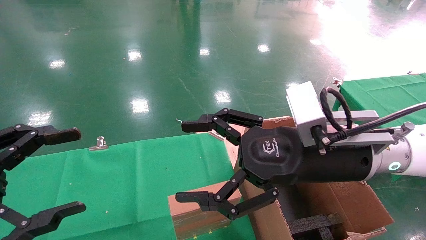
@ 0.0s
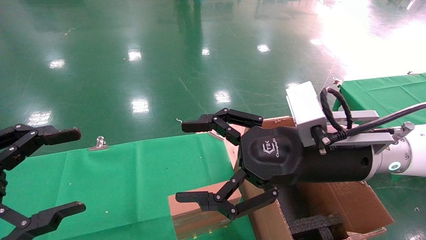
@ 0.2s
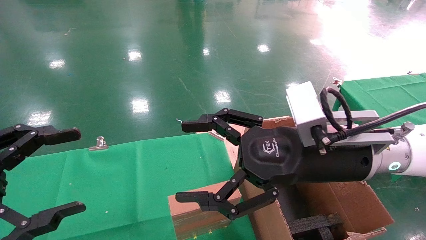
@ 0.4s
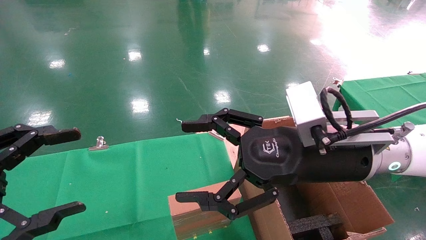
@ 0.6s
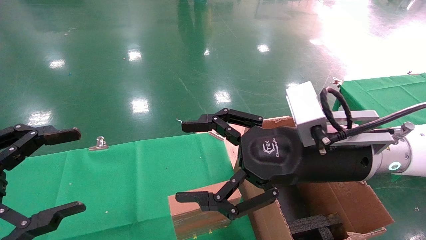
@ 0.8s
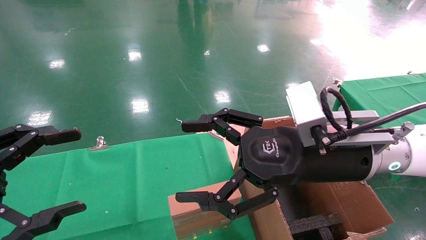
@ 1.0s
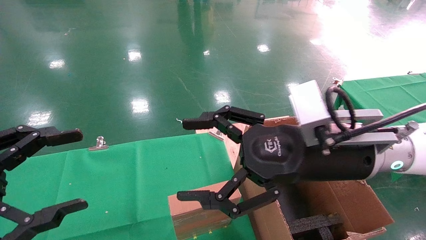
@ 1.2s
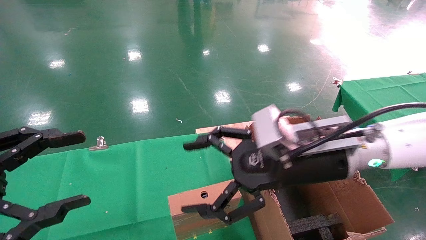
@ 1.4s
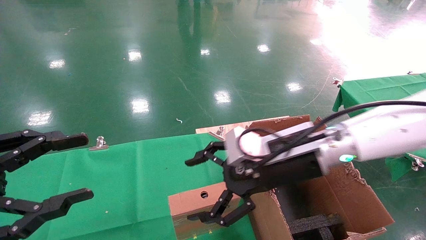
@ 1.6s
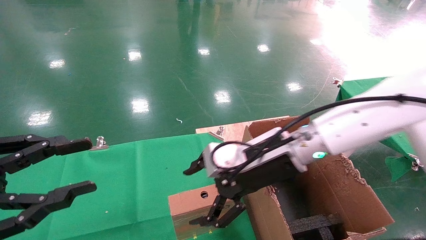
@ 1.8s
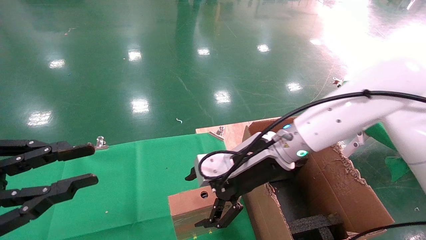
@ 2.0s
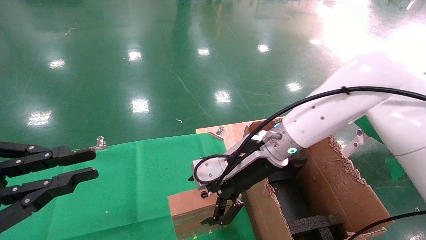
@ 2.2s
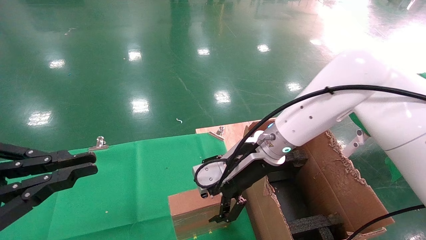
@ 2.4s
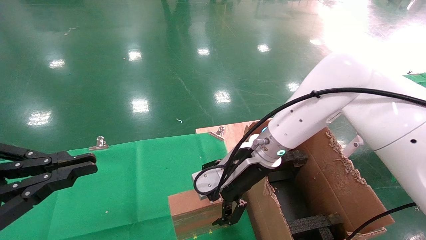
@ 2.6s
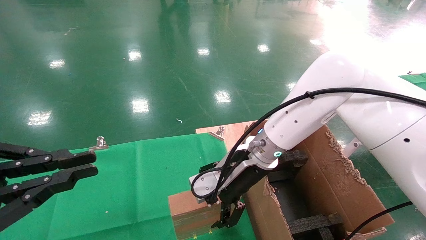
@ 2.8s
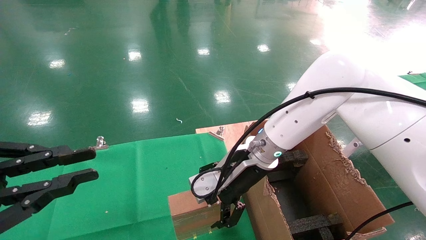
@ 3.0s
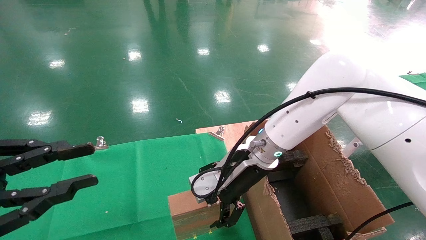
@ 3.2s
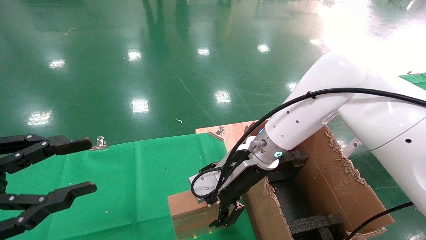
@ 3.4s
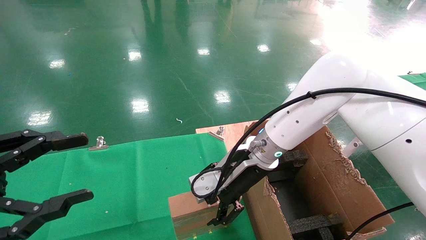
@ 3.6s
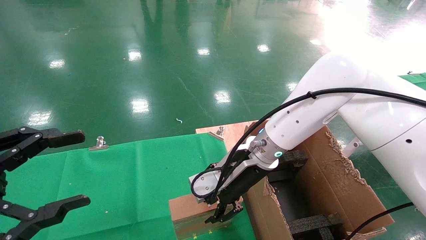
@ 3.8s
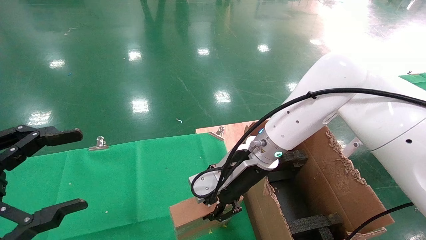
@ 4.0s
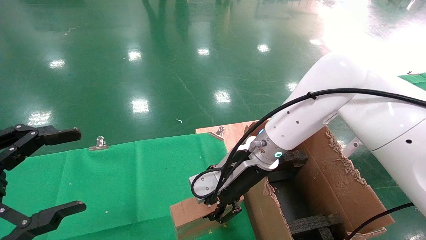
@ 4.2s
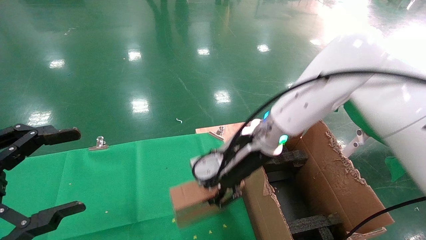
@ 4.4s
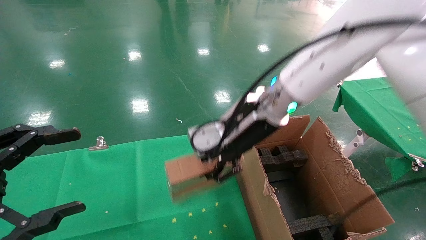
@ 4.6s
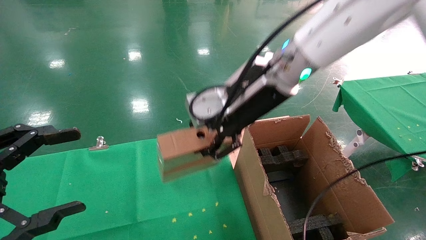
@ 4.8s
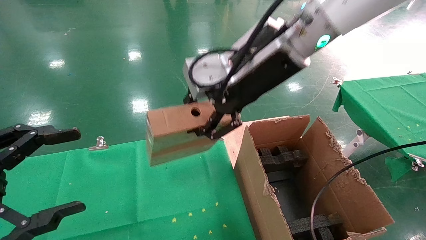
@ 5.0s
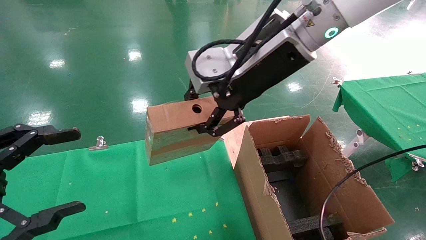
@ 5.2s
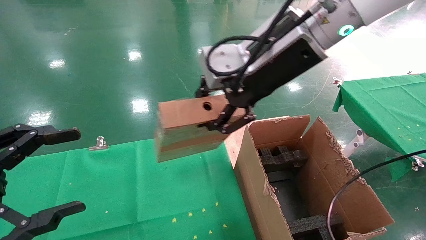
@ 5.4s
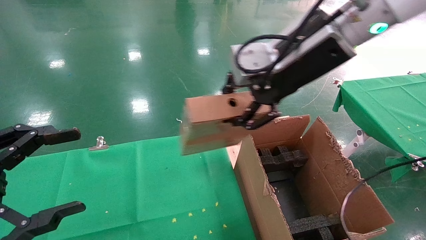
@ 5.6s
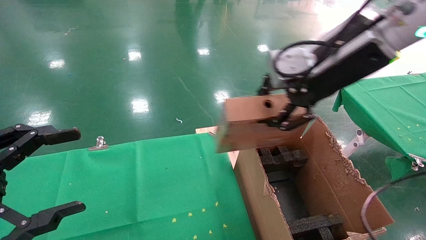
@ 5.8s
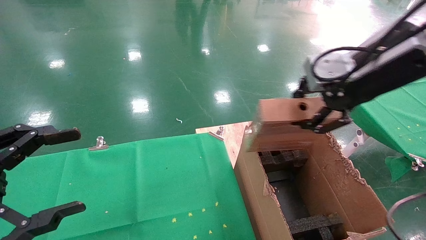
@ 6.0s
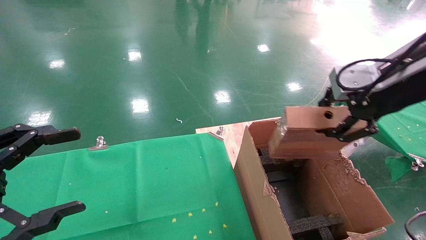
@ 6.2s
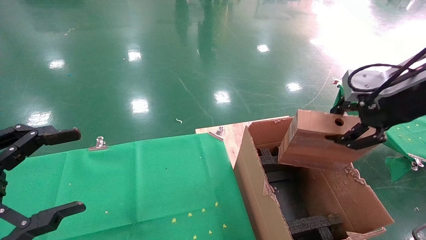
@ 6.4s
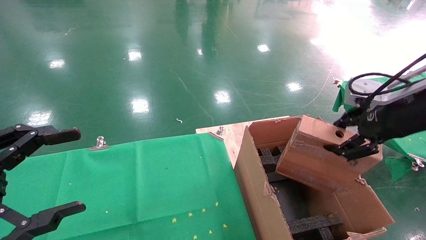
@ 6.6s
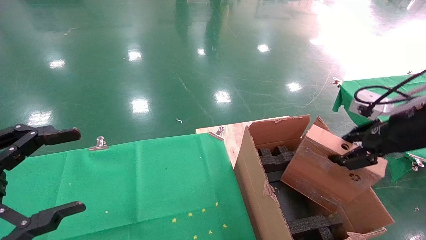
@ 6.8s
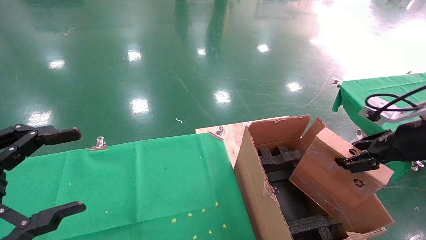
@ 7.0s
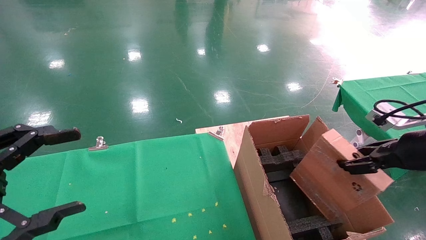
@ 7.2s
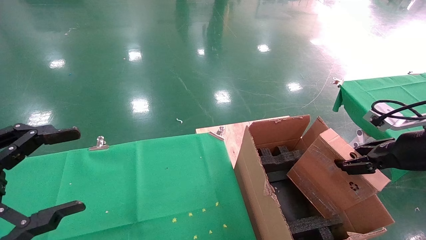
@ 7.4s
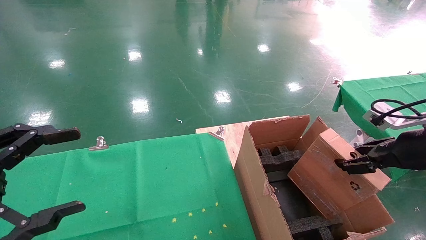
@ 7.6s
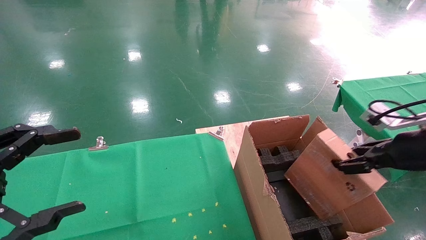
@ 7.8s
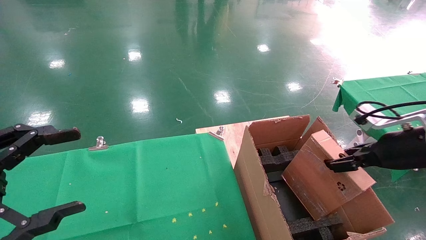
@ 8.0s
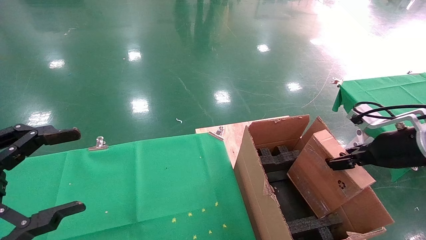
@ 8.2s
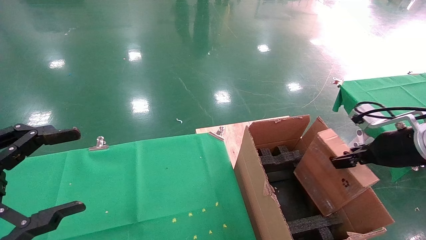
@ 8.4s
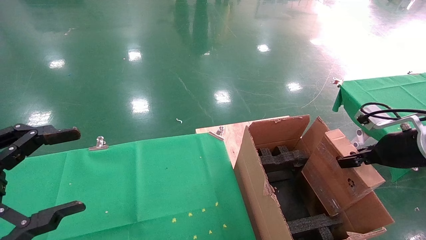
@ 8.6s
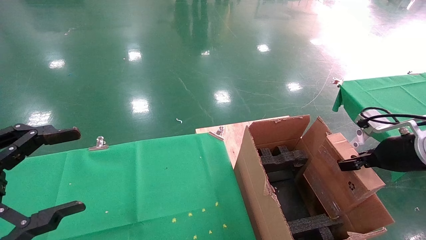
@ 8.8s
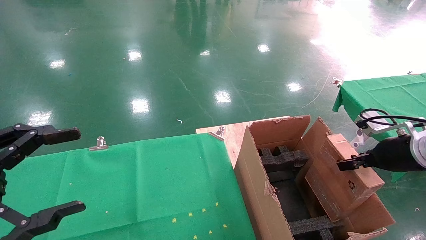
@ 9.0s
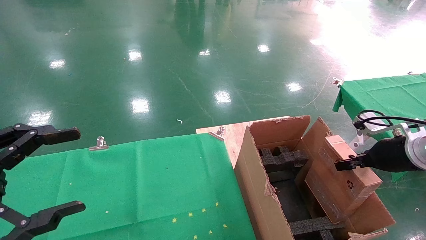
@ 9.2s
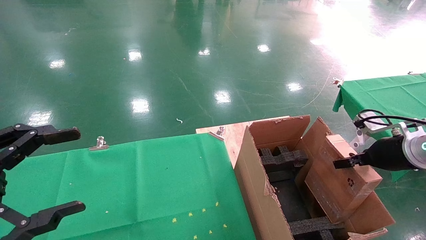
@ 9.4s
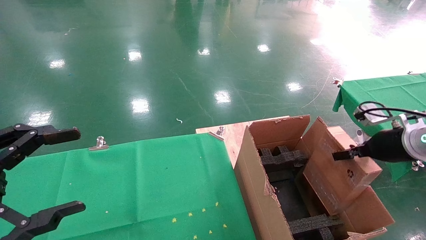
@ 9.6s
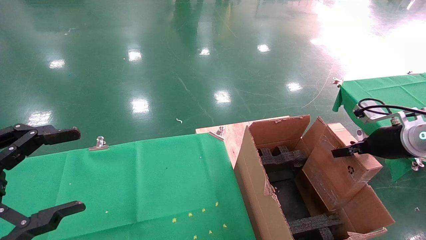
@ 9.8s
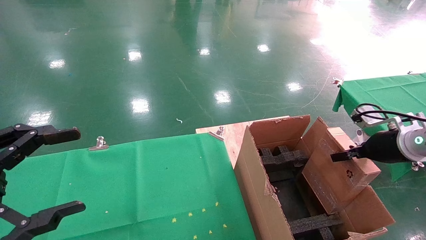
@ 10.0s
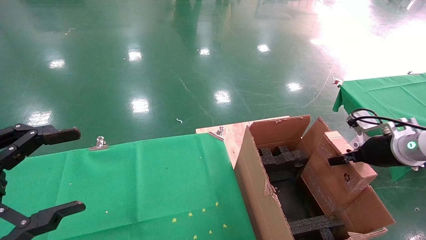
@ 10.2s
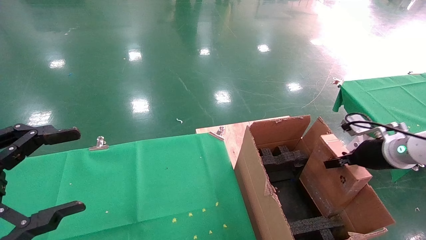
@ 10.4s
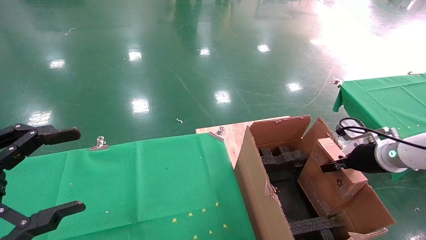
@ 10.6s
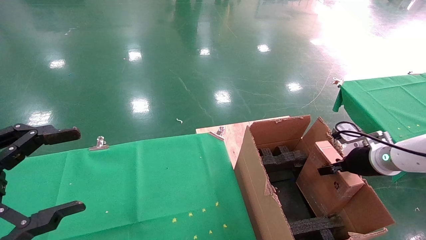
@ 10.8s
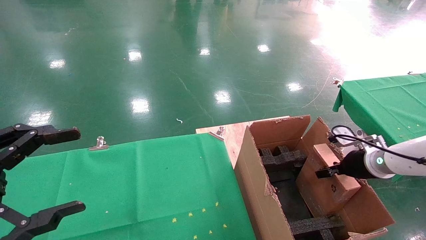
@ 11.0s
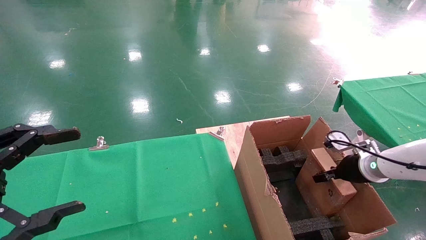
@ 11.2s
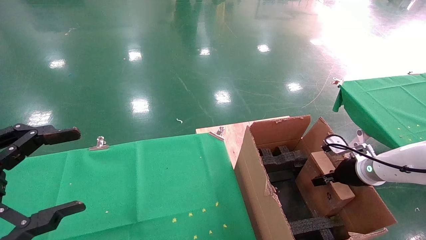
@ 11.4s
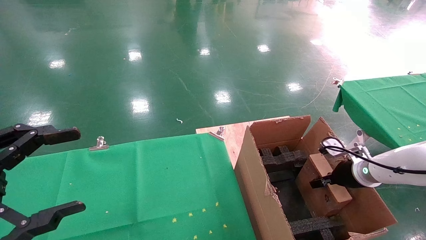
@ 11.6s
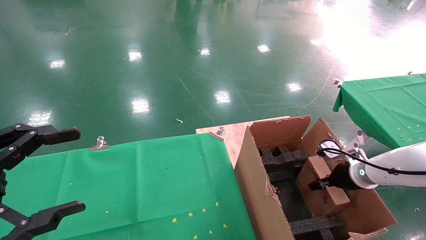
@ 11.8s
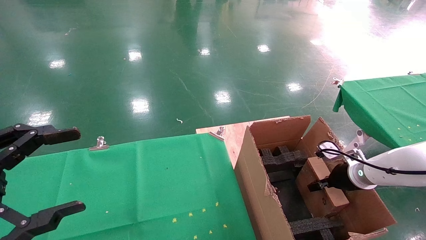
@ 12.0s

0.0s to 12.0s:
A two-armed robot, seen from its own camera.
Task of the whole recording: using a robotic arm to pick up a cardboard box and palace it the carton.
Step, 1.4s to 4.4s: Pick up the mouse and the power cord paper box.
0.0s to 1.6s: The right gripper shifts roughly 5 cm forward.
1.6s to 3.0s: The left gripper closes up. The right gripper shifts roughly 5 cm forward.
3.0s to 4.4s: The right gripper shifts by about 5 cm, and closes. Meanwhile the left gripper opens.
4.4s to 6.0s: The right gripper is displaced to the right, upward and backward by roughly 25 cm.
6.0s to 7.6s: The right gripper heads downward and to the right, covering about 20 cm.
7.6s to 9.0s: The right gripper shifts by some 5 cm.
9.0s to 10.4s: The right gripper changes place by some 5 cm.
10.4s to 12.0s: The right gripper shifts about 10 cm downward.

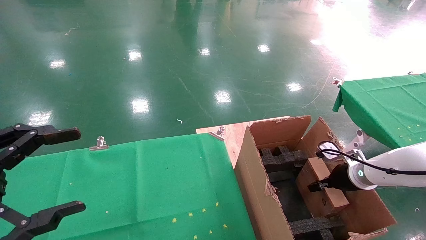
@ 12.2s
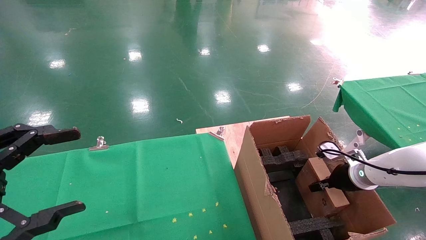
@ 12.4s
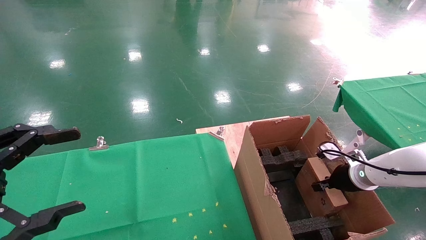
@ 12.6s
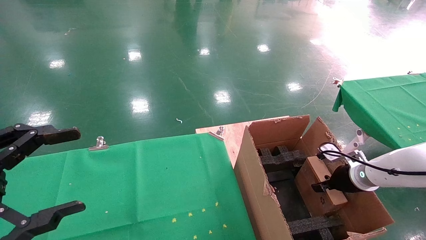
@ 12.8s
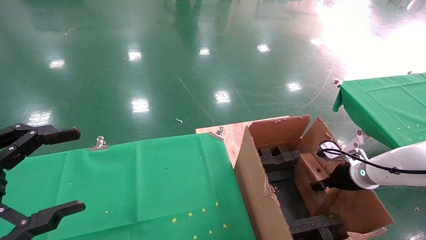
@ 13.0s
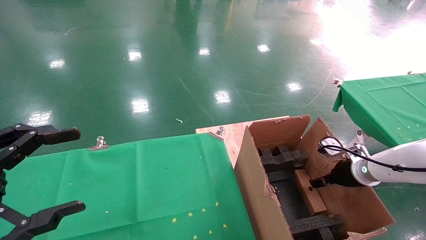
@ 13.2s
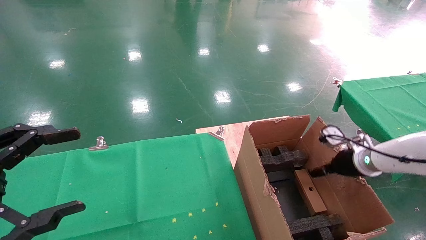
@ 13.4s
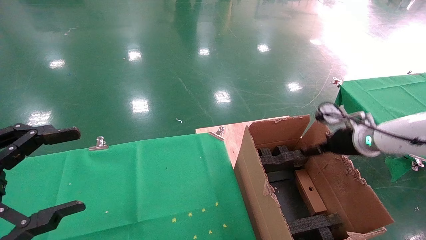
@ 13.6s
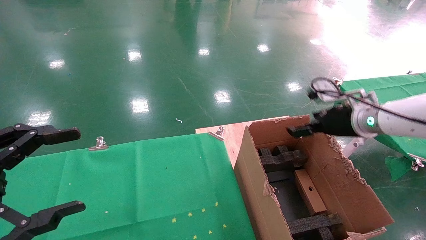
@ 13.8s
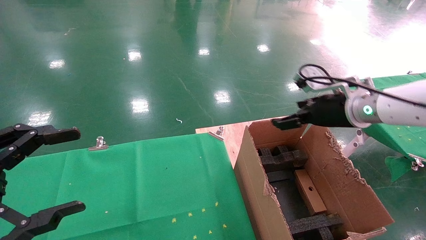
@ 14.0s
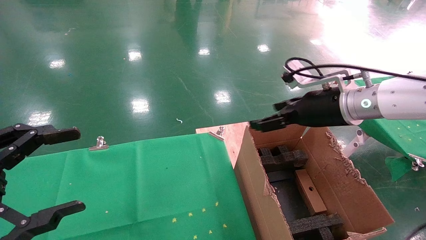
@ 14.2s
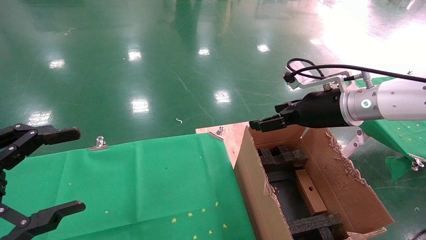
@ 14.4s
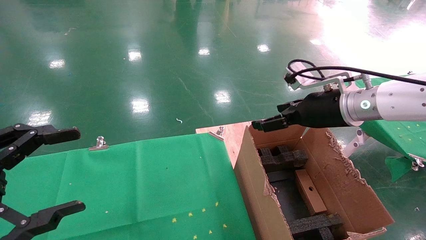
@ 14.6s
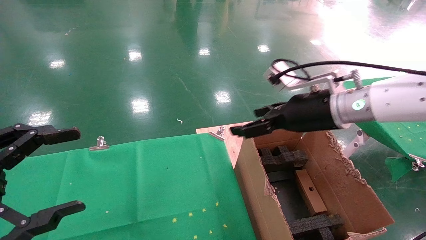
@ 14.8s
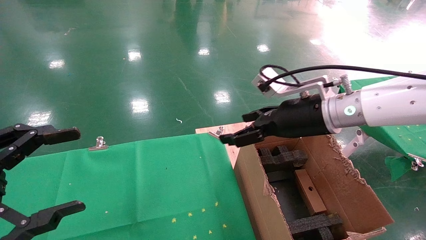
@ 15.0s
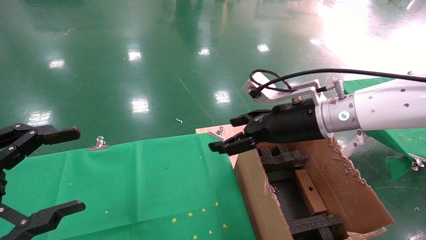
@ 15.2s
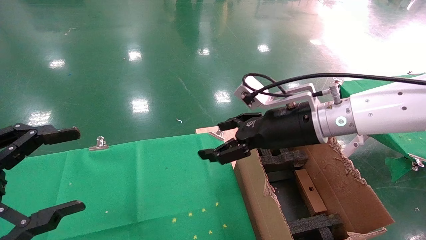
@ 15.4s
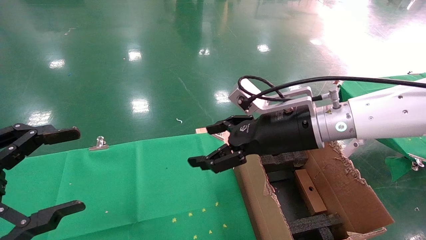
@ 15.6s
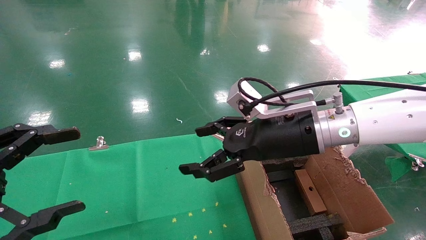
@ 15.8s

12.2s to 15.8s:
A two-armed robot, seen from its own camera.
Task of the whole recording: using a robotic arm to pick up a cardboard box and palace it the carton.
12.2s to 14.0s: The right gripper travels upward and to the left by roughly 20 cm, and opens up.
14.0s to 15.8s: The right gripper shifts some 15 cm to the left.

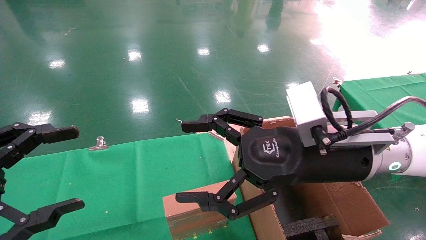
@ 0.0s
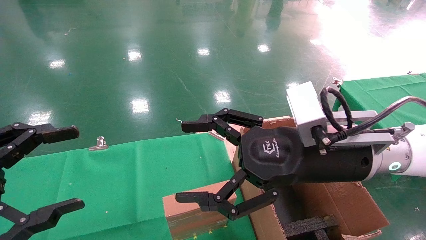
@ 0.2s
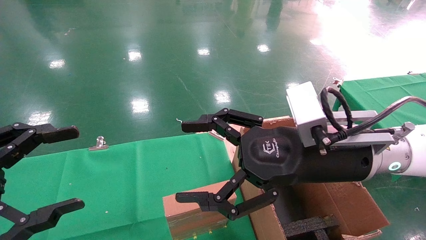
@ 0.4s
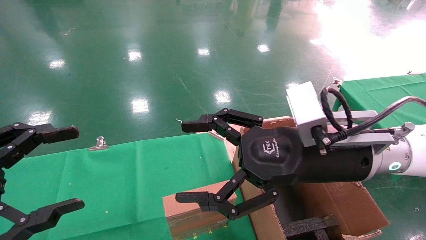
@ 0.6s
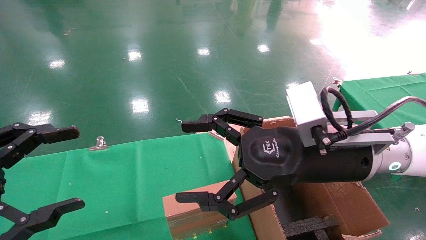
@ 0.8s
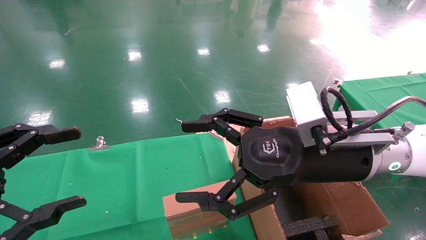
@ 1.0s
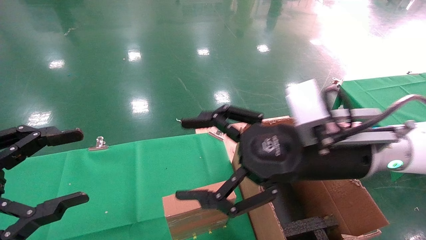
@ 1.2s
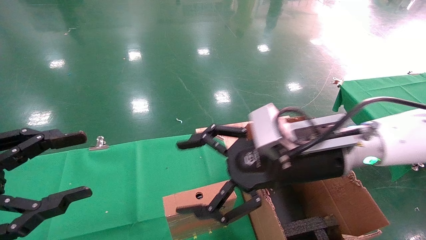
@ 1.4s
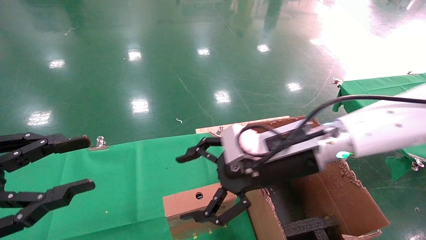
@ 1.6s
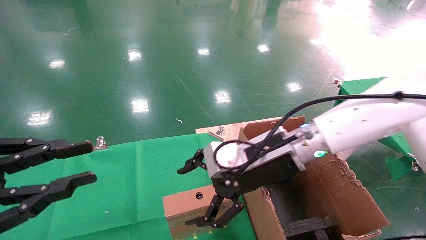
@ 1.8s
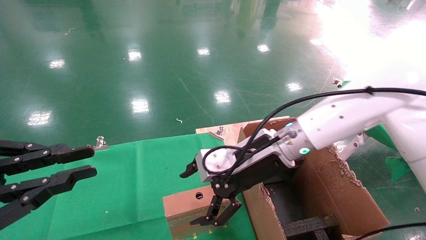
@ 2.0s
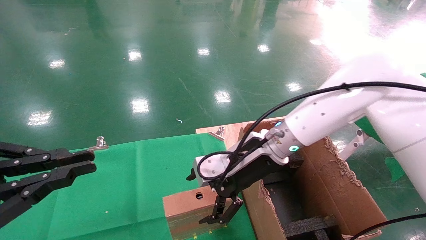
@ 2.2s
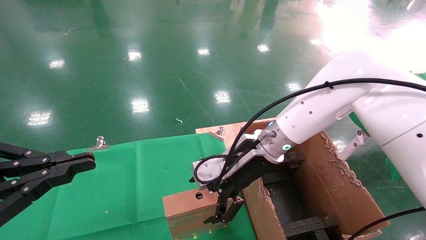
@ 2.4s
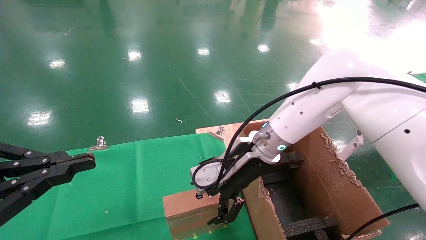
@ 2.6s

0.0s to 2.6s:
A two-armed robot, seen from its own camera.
Task of the whole recording: using a robotic arm to pick up a cardboard box and palace it the carton.
0.0s to 1.2s: The grippers move only a little.
1.2s to 2.6s: The left gripper closes its fingers, while the right gripper is displaced forward and to the left by approximately 15 cm.
